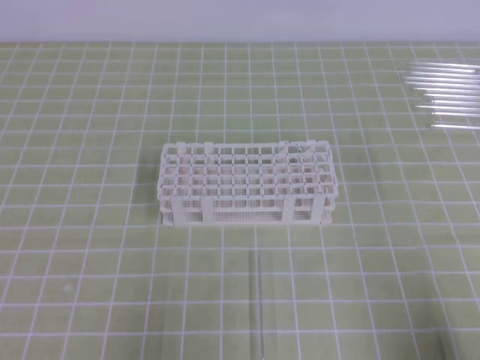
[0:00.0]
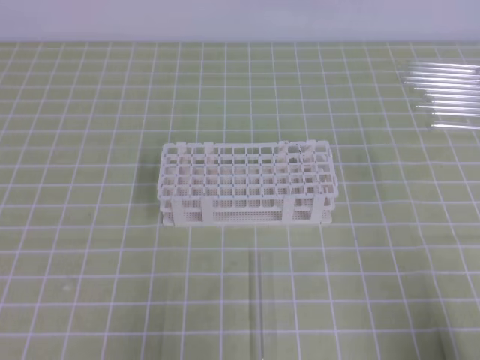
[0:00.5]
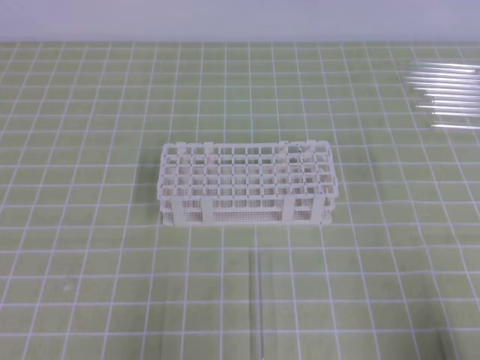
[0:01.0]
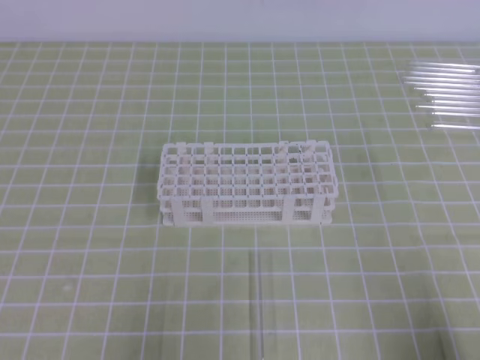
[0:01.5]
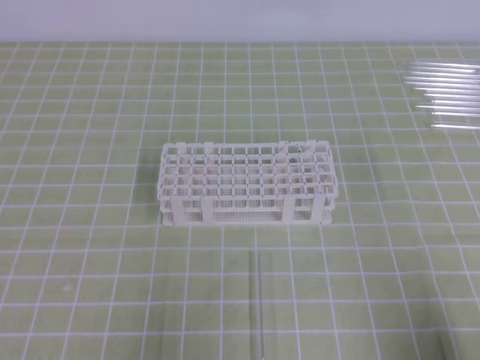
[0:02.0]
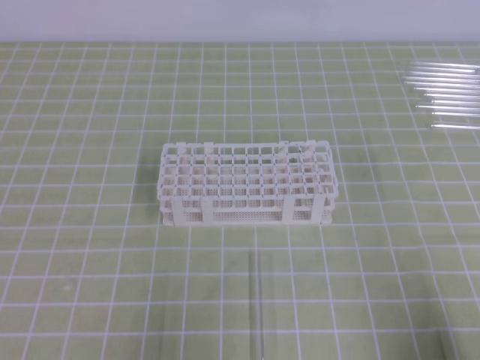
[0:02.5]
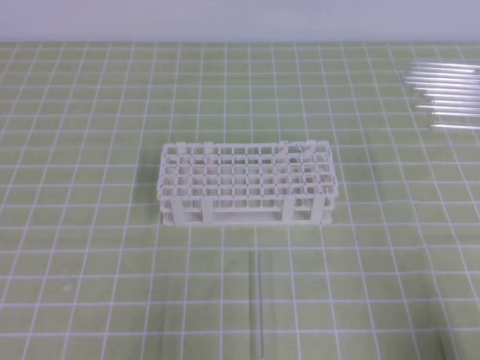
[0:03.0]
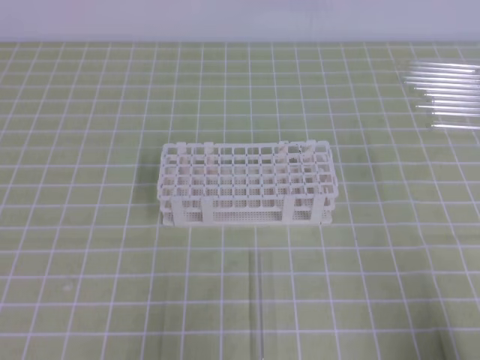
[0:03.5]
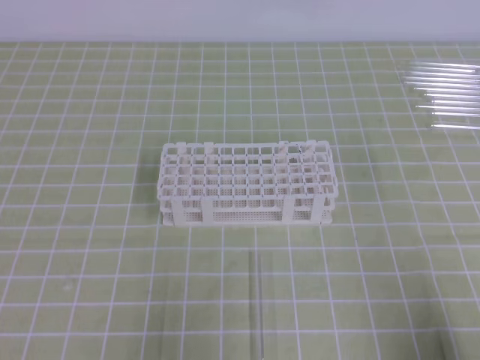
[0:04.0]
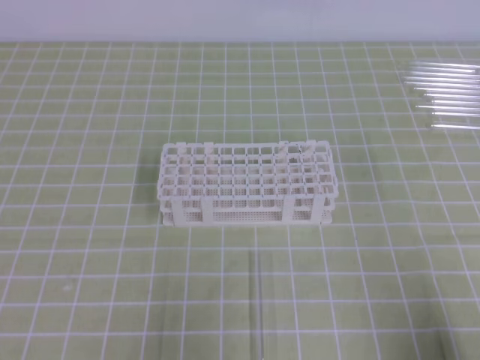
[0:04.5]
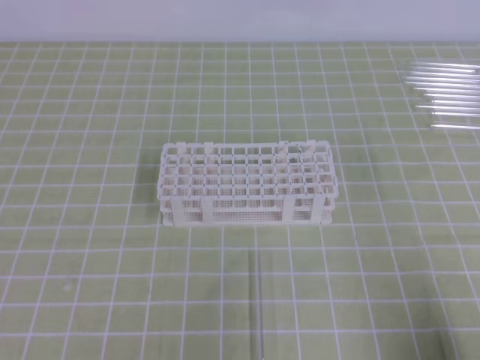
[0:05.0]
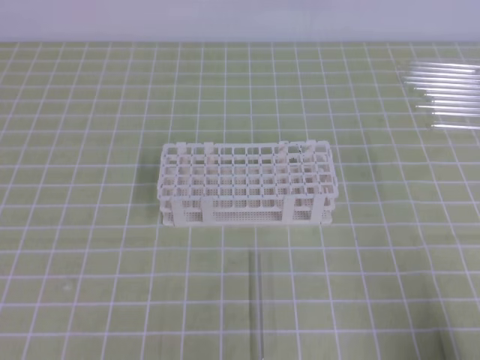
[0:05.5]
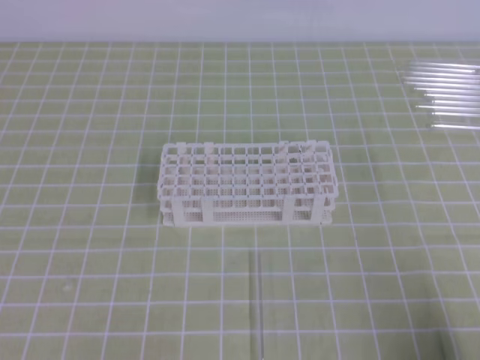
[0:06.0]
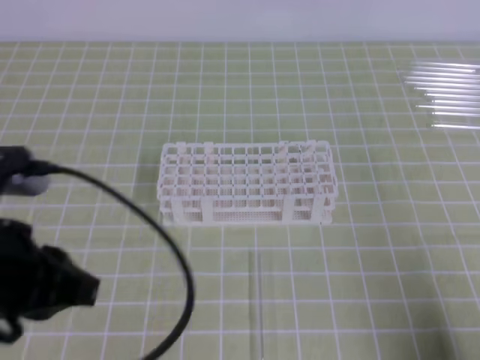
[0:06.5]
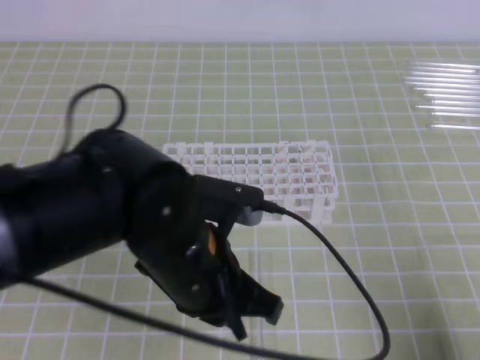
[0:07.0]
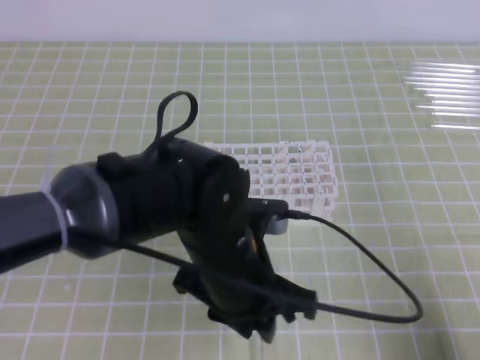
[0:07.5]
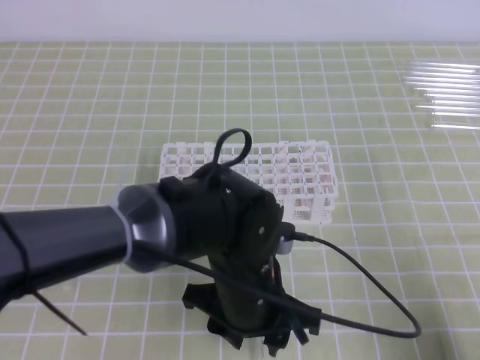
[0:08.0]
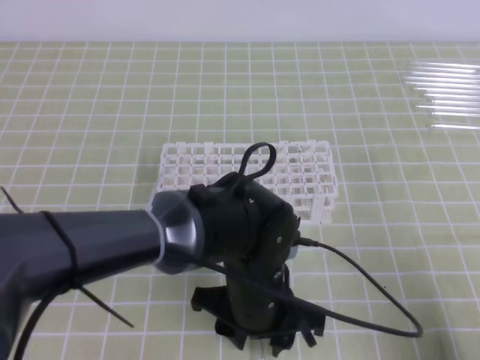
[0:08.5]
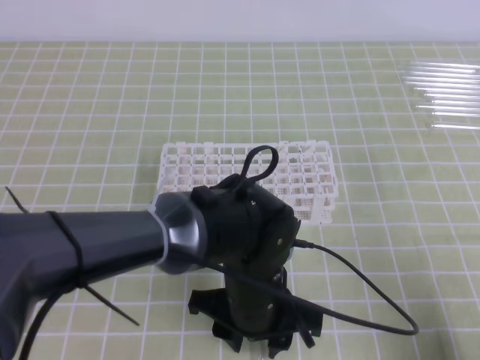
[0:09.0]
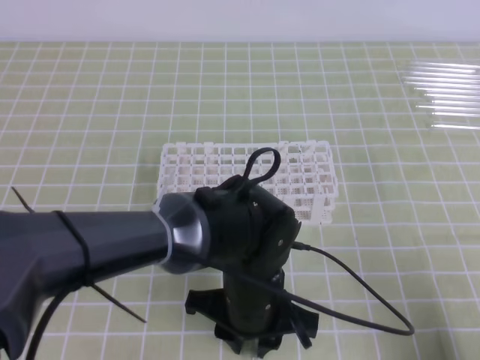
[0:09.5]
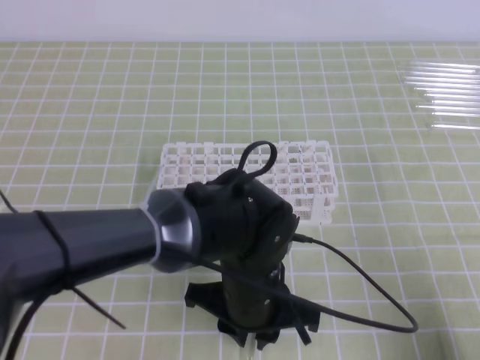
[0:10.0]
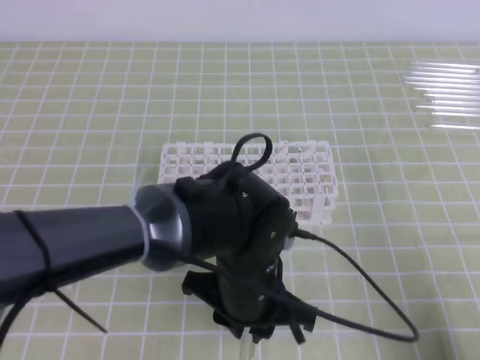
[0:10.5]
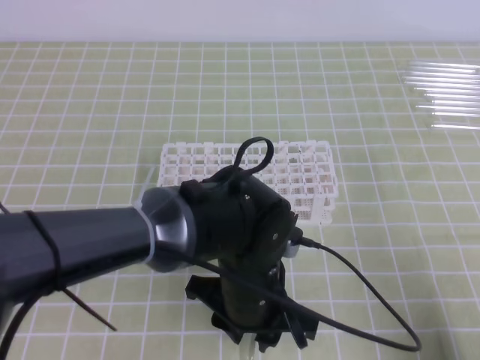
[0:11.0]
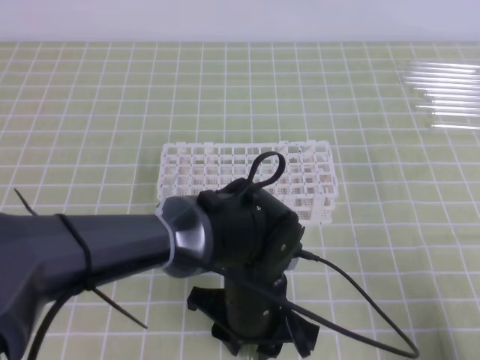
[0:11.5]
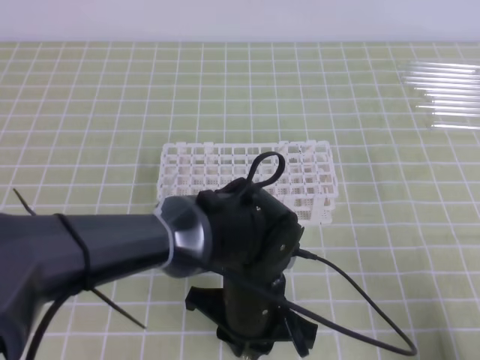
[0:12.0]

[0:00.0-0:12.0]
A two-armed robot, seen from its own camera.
0:02.0 to 0:04.0: Neither gripper changes place.
0:06.0 to 0:08.0: The left gripper heads to the right and forward, covering approximately 30 cm, and opens.
0:08.0 to 0:10.0: The left gripper closes up.
0:10.0 to 0:12.0: The left gripper closes up.

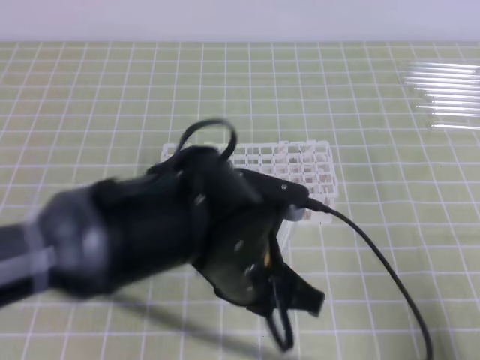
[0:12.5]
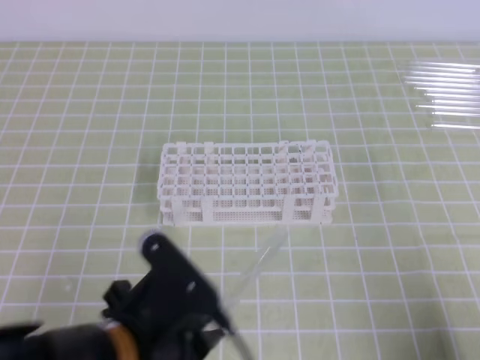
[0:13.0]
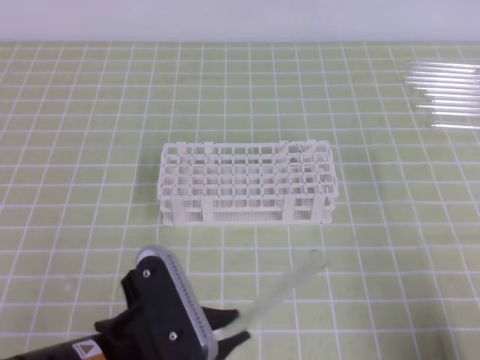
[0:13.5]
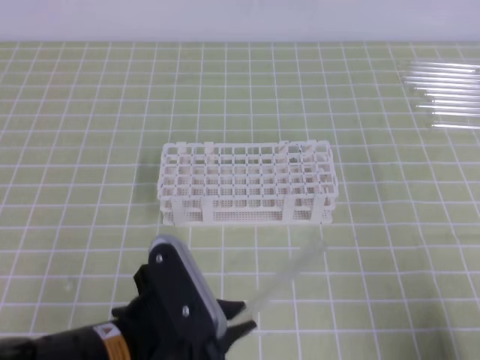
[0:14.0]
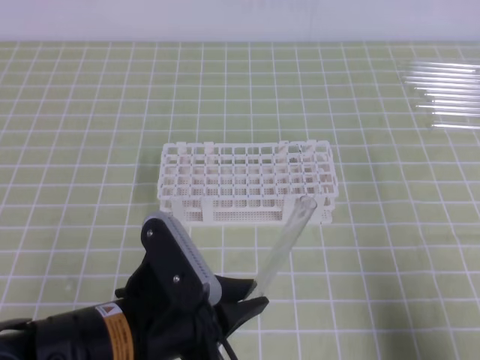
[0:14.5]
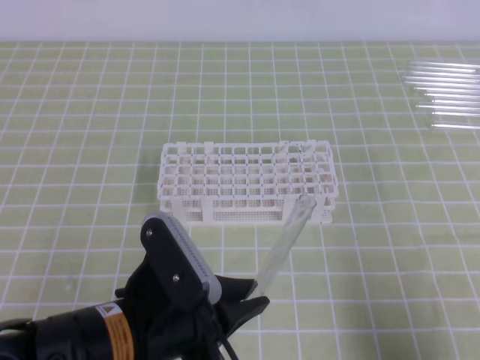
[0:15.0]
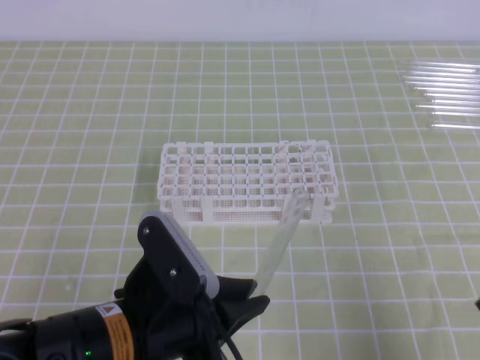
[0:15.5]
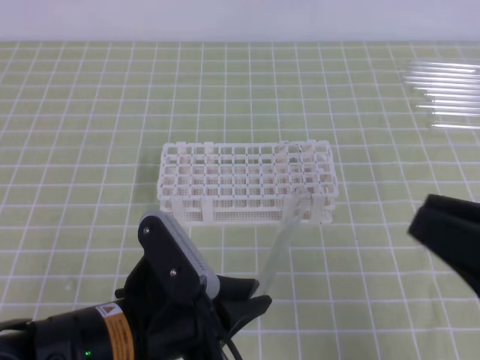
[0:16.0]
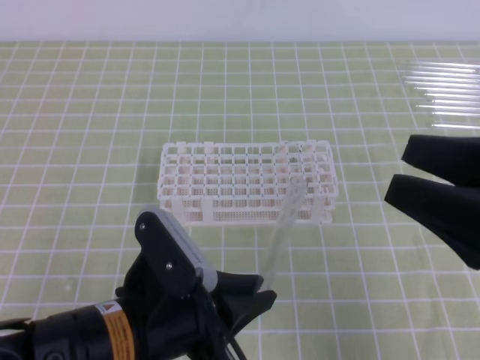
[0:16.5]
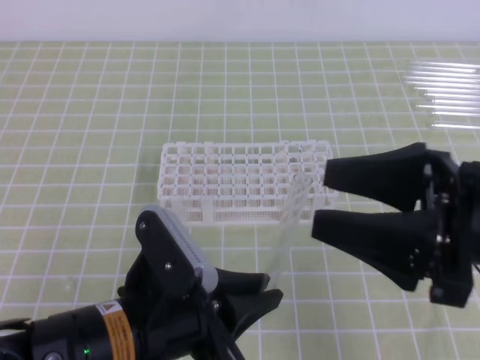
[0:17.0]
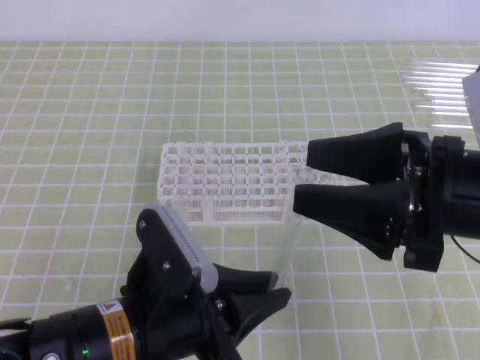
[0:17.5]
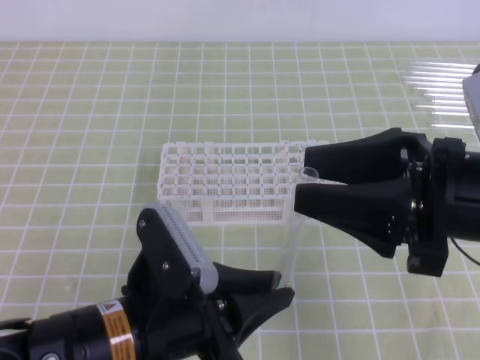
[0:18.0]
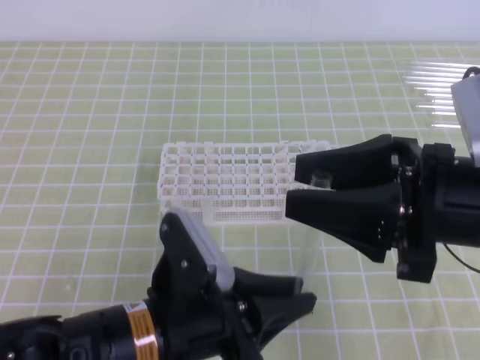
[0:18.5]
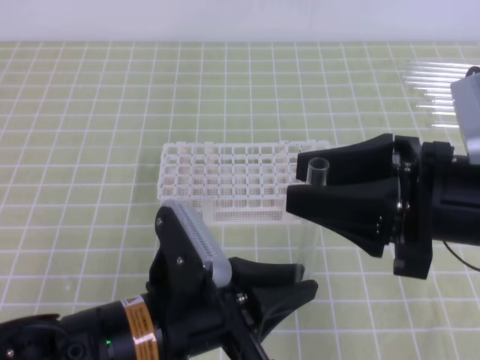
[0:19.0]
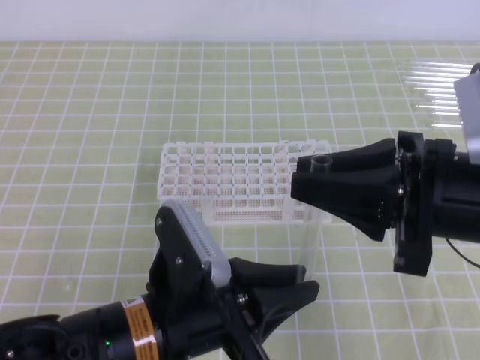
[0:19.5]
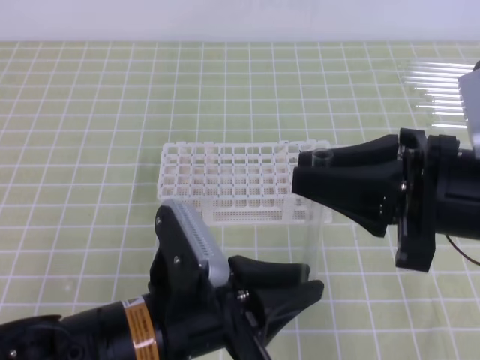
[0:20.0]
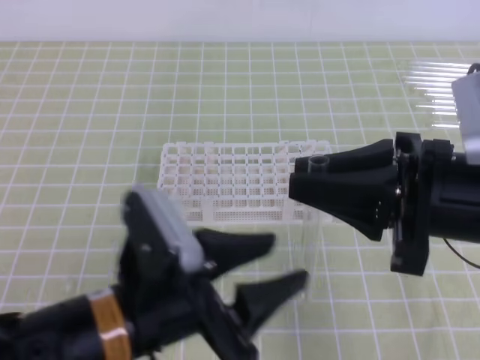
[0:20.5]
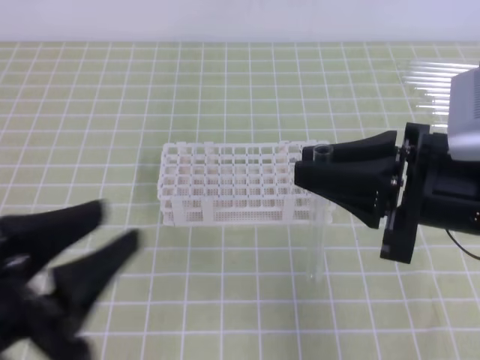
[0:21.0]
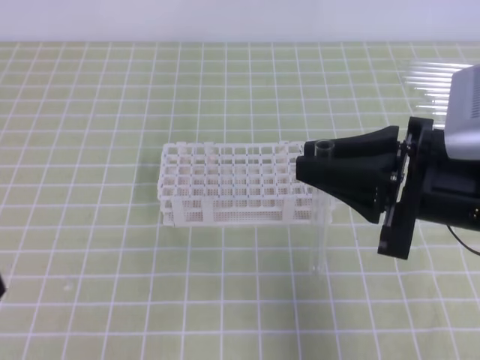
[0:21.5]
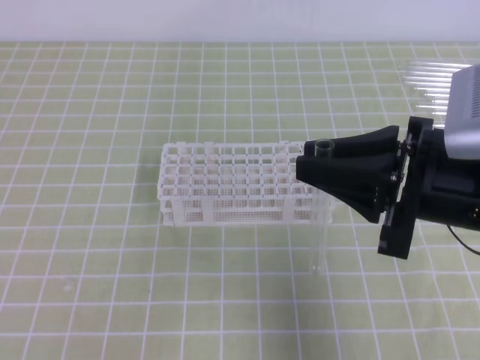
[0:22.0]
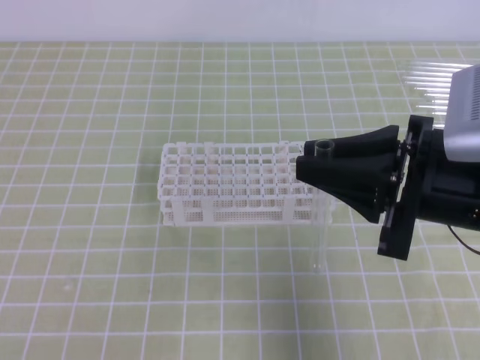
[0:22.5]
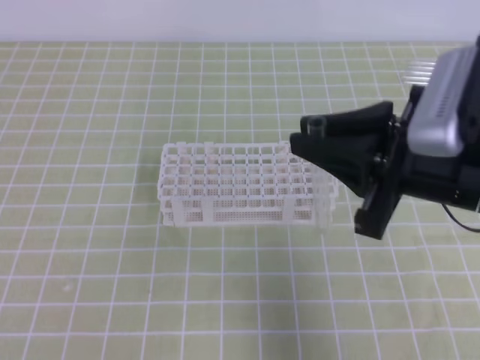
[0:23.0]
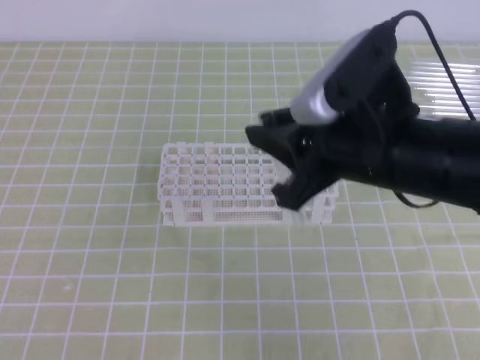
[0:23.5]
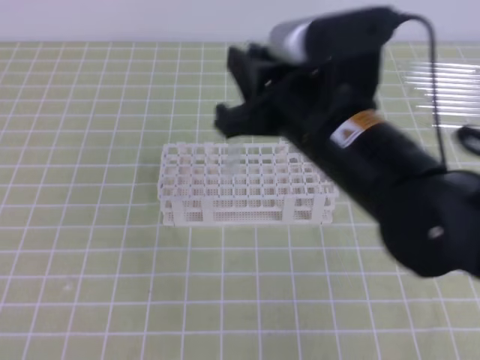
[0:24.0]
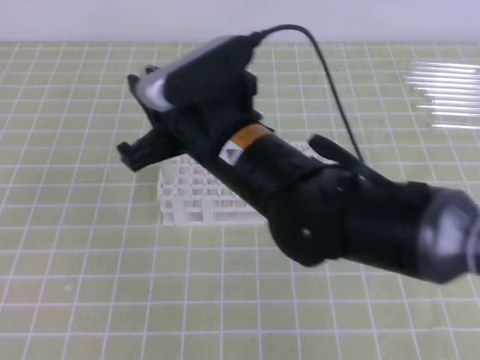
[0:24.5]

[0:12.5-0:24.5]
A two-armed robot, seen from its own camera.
Step, 0:12.5 to 0:19.0: Place the test tubes on the test tube rack with the right gripper.
0:12.5 to 0:14.5: The left gripper goes roughly 10 cm to the left and backward.
0:14.5 to 0:16.5: The right gripper is displaced upward, forward and to the left by roughly 15 cm, and opens.
0:16.5 to 0:18.5: The right gripper moves to the left, about 5 cm.
0:18.5 to 0:20.5: The right gripper closes. Meanwhile the left gripper opens.
0:20.5 to 0:22.5: The left gripper moves to the left and backward, roughly 20 cm.
0:22.5 to 0:24.5: The right gripper travels to the left by about 20 cm.

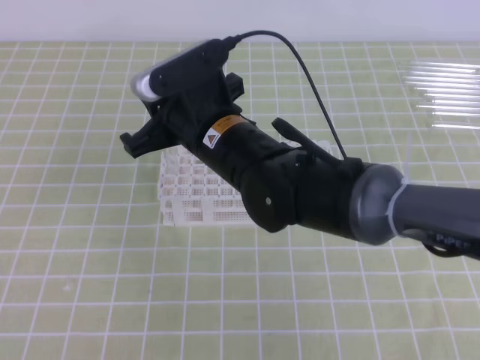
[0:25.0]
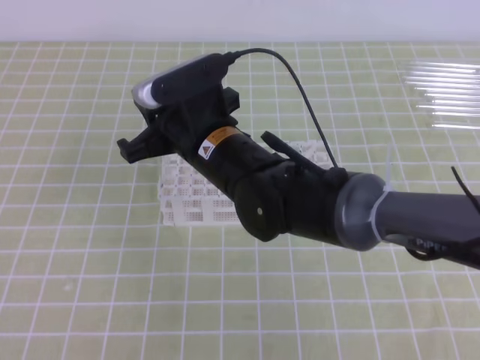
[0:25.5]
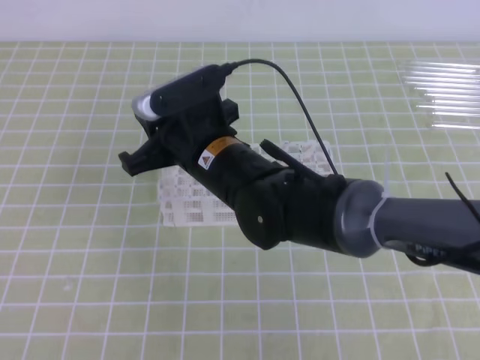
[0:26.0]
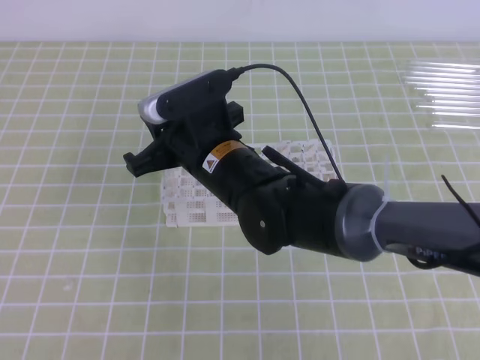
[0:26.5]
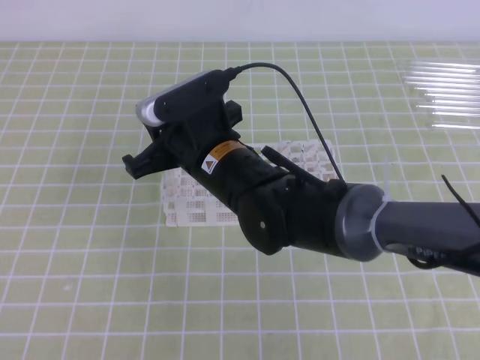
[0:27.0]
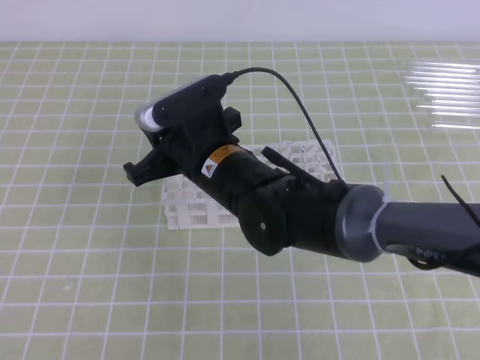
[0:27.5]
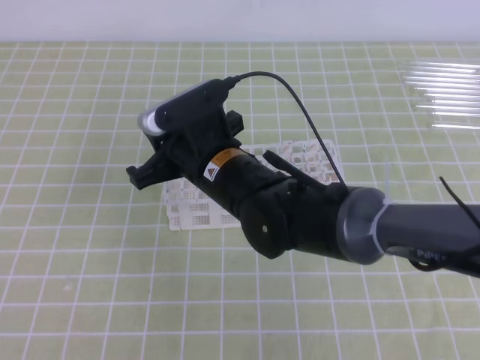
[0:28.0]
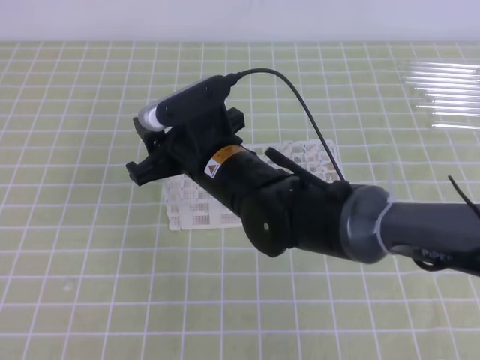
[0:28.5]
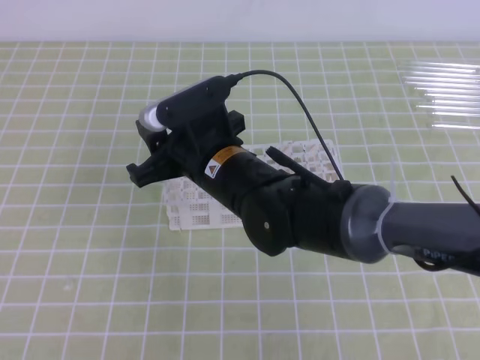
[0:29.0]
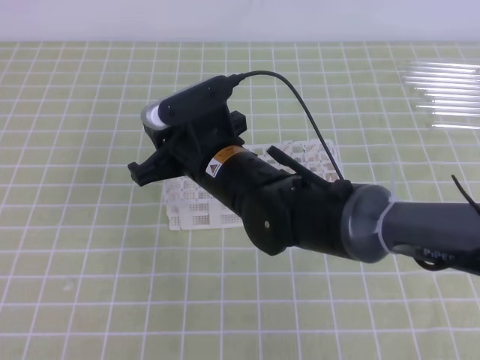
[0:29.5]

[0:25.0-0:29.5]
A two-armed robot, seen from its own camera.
0:25.0 to 0:27.0: The grippers make only small movements.
0:27.0 to 0:29.5: Both grippers stay put.
